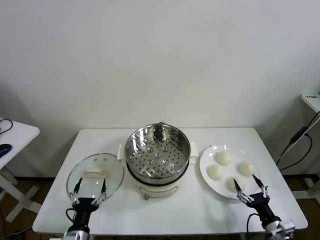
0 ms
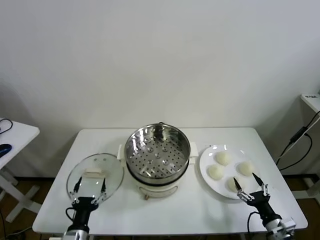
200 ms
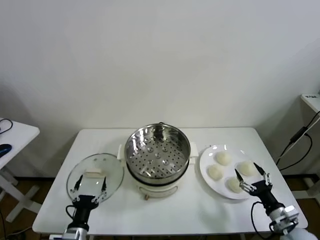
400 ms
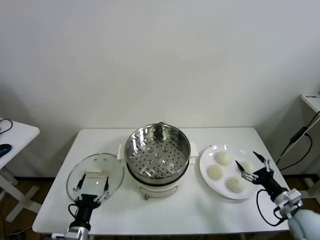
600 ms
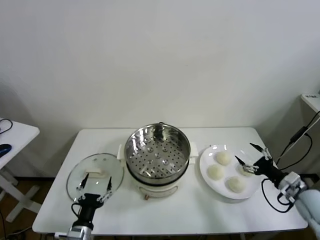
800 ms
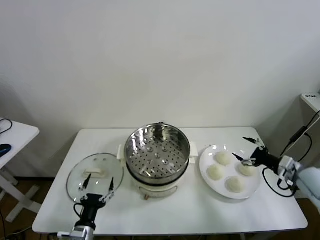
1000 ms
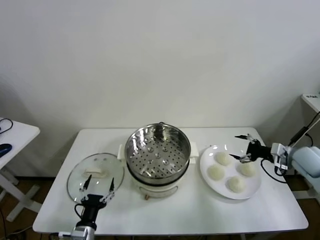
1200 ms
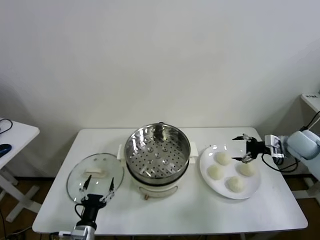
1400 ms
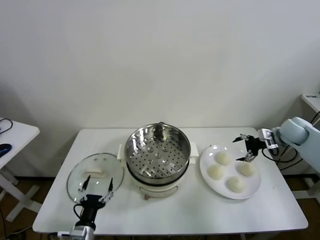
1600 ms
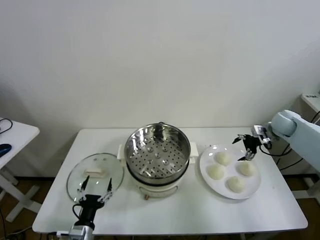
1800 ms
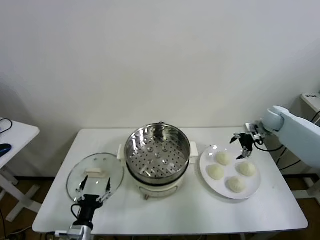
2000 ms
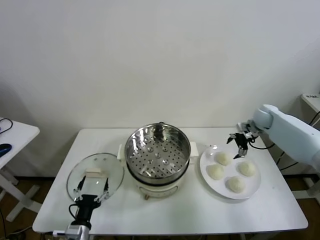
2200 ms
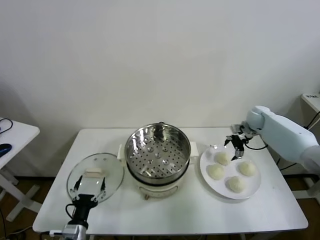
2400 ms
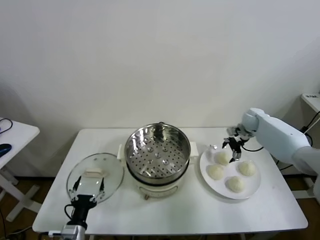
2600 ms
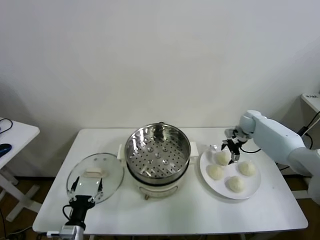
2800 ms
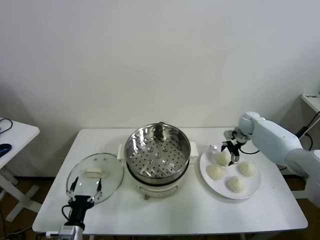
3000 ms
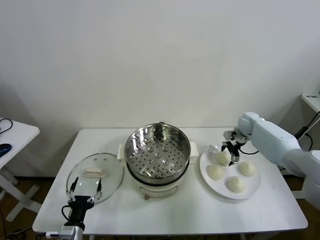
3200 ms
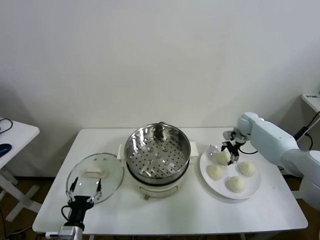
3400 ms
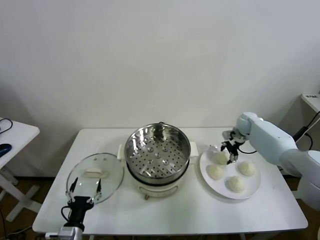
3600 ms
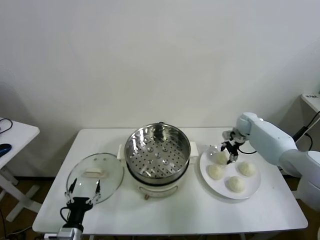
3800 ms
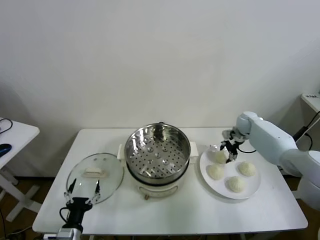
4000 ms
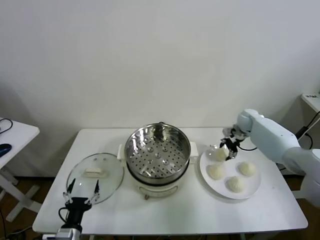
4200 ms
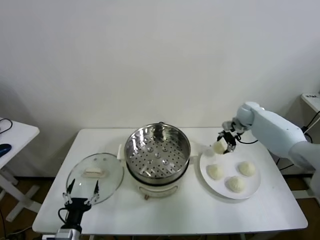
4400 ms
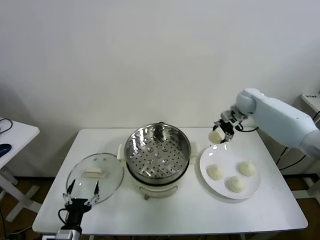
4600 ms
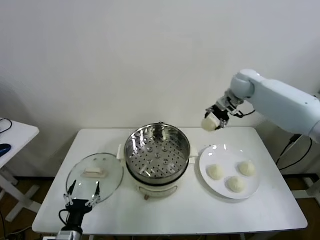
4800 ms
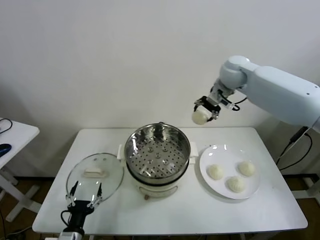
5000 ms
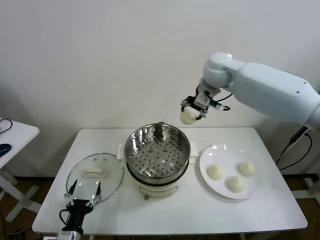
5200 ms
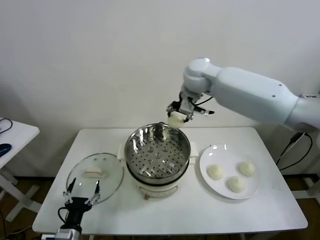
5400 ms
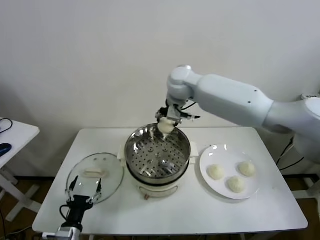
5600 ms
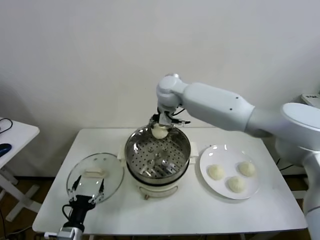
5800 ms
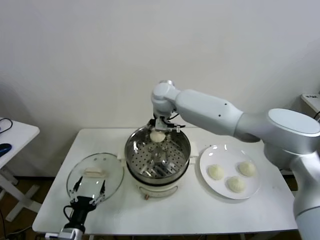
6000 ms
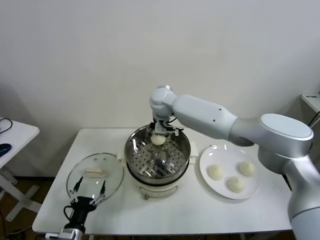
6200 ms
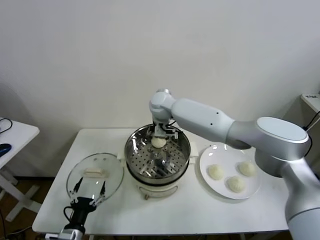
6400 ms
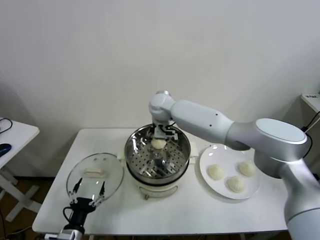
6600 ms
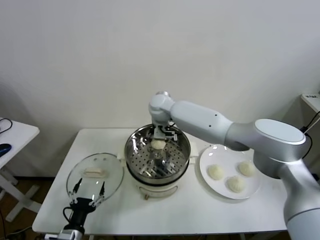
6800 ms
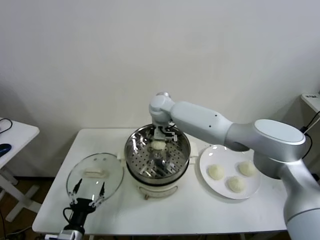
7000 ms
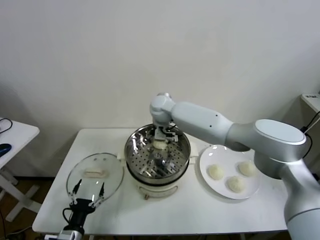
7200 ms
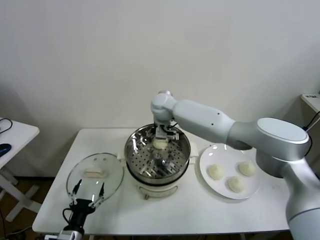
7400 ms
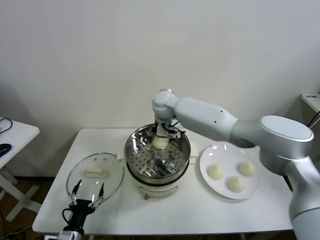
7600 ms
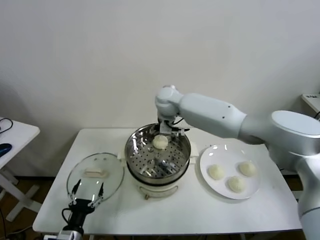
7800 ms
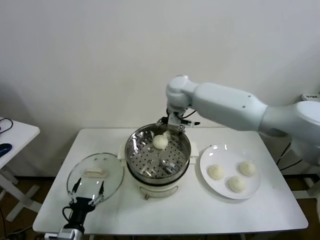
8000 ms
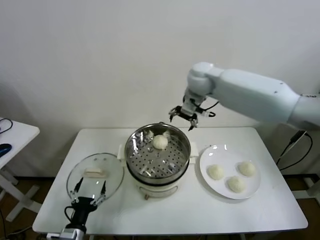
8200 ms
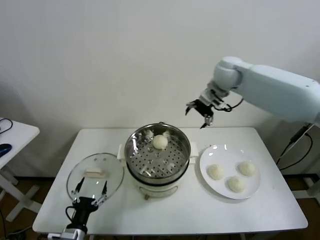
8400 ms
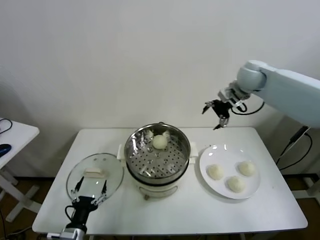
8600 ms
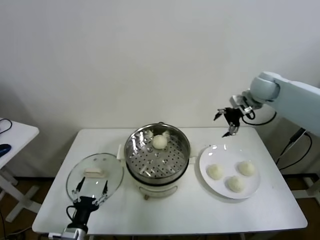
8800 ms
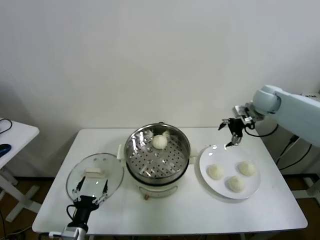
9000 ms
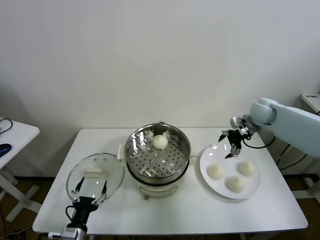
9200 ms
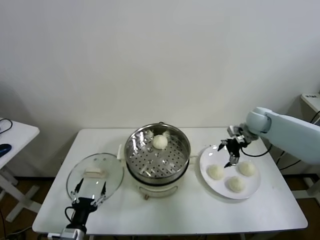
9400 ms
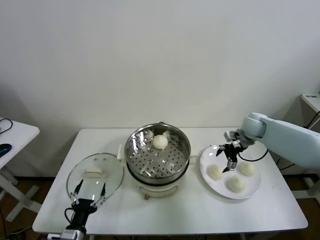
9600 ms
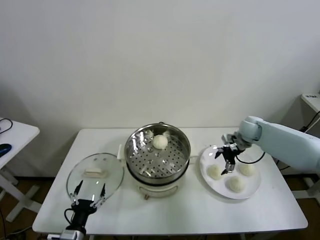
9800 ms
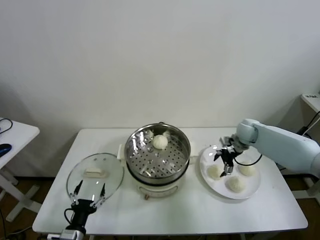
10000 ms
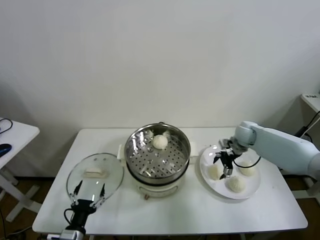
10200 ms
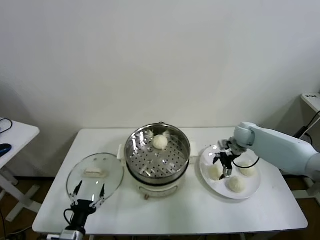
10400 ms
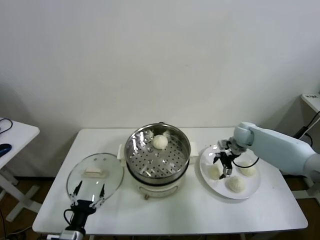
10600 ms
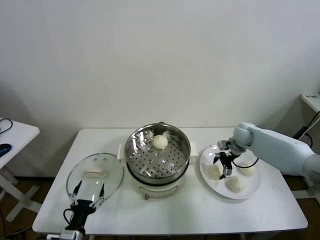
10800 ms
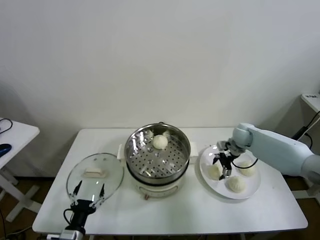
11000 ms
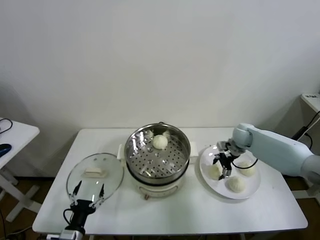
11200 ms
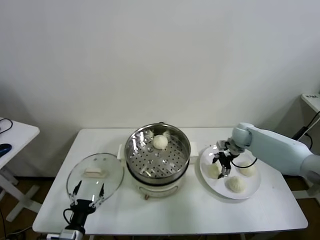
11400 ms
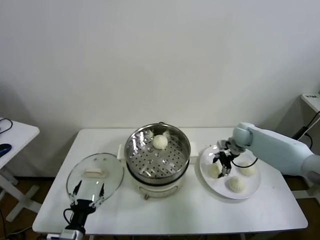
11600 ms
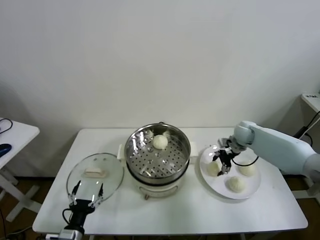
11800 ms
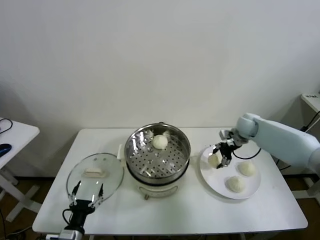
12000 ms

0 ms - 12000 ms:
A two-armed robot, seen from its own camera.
Task of the whole recording: take steamed baozi put them in steamer.
Step, 0 ms - 3400 ms: Grasp the baozi in the plate with right gripper.
Step, 3800 ms - 7200 ms: Place the baozi on the steamer with right gripper.
Step, 7400 ms - 11200 ms: Grasp the baozi in the plate with right gripper.
1600 ms - 3000 ms: The right gripper shifts about 15 cm forward, to the left and downward.
3000 ms - 4400 ms: The right gripper moves upward, approximately 10 cm, and closes.
4400 ms - 6000 ms: The right gripper travels to the left by approximately 35 cm.
6000 ms - 7600 ms: The right gripper opens its fingers.
7600 ms - 9000 ms: The right gripper moves to the right, about 35 cm.
9000 ms - 10400 ms: The right gripper goes some 15 cm downward.
10400 ms - 12000 ms: The right gripper moves upward, about 5 cm, and closes its fingers.

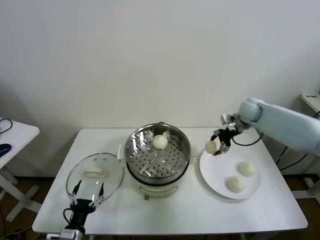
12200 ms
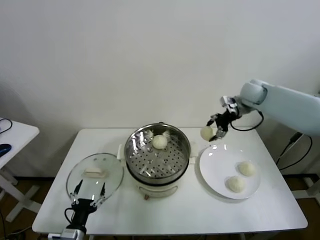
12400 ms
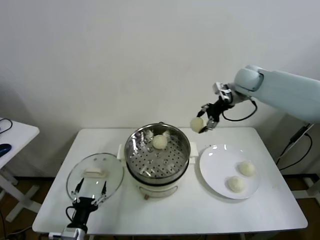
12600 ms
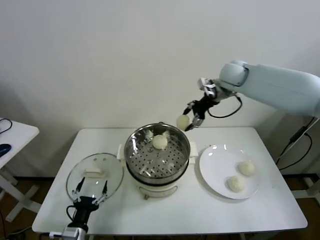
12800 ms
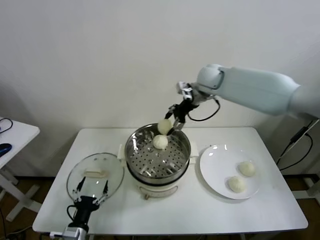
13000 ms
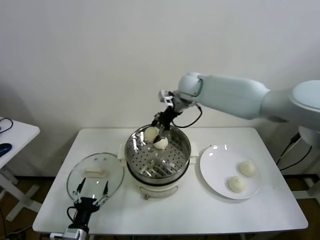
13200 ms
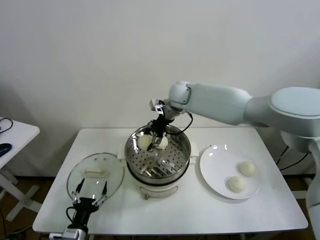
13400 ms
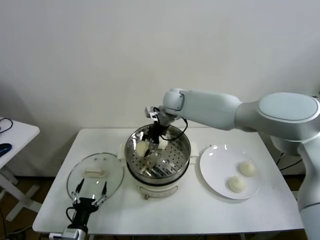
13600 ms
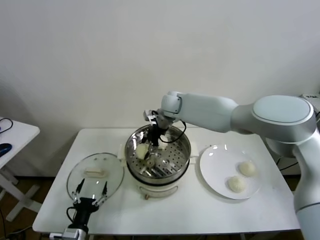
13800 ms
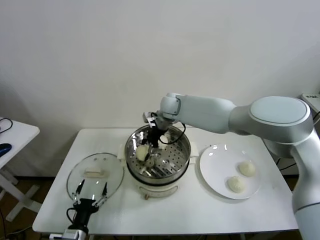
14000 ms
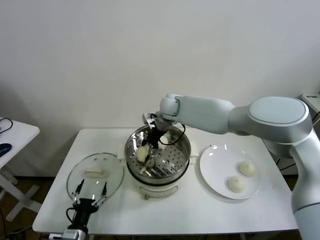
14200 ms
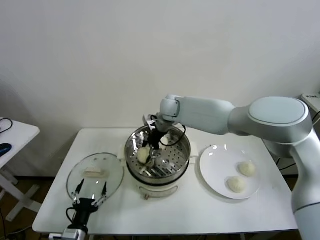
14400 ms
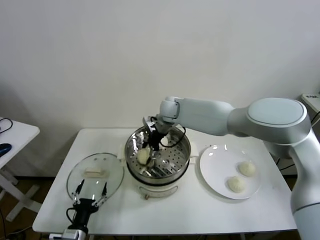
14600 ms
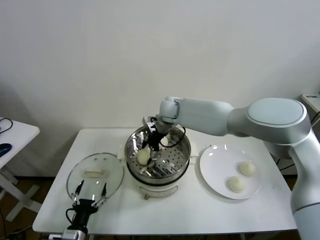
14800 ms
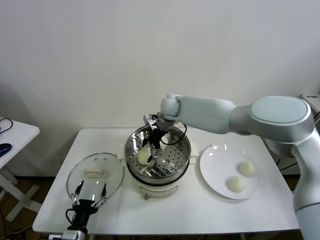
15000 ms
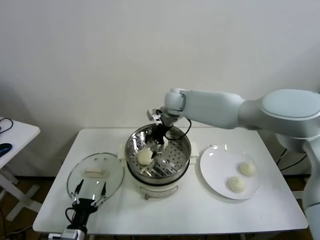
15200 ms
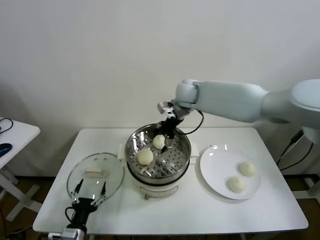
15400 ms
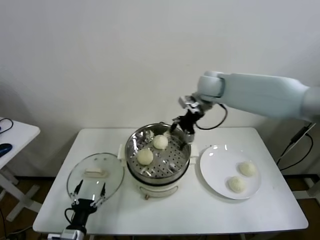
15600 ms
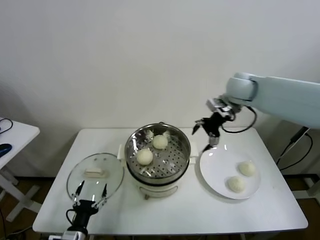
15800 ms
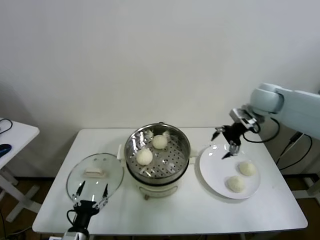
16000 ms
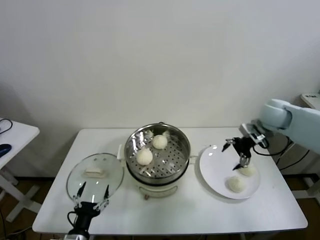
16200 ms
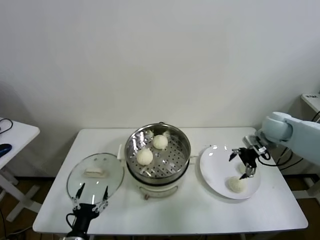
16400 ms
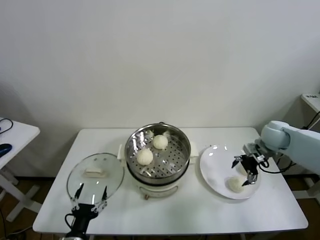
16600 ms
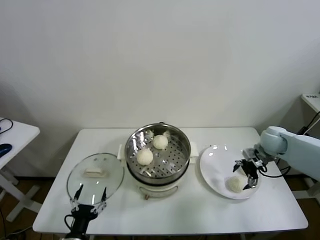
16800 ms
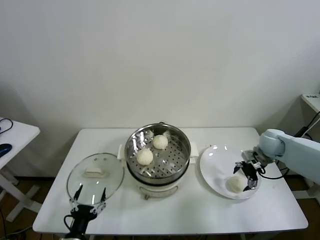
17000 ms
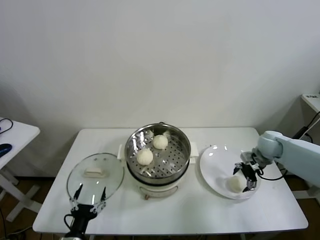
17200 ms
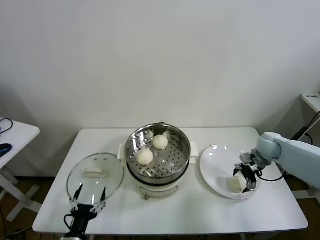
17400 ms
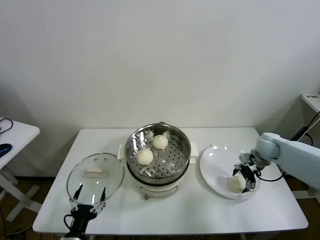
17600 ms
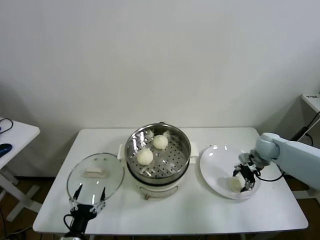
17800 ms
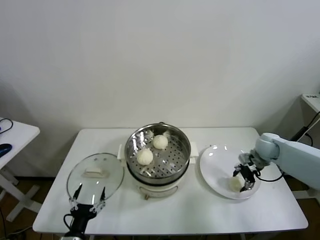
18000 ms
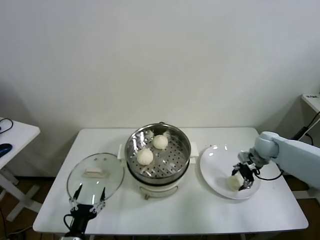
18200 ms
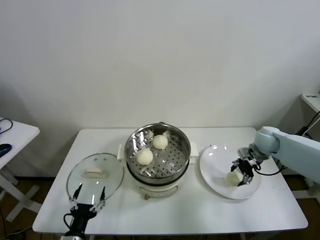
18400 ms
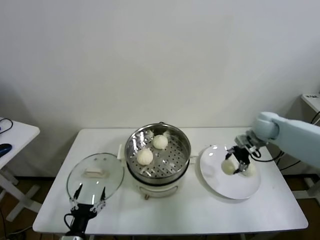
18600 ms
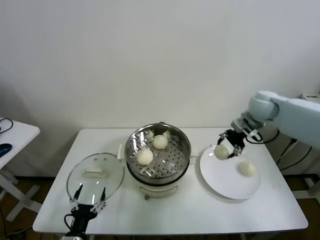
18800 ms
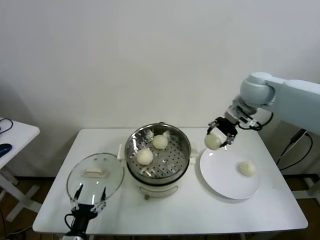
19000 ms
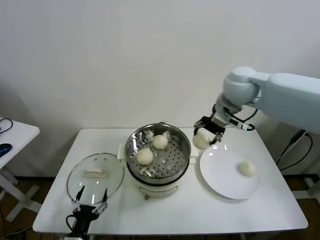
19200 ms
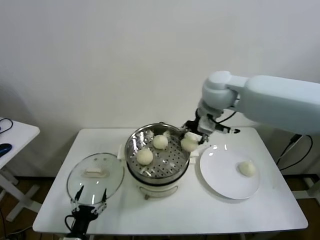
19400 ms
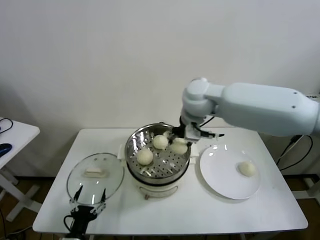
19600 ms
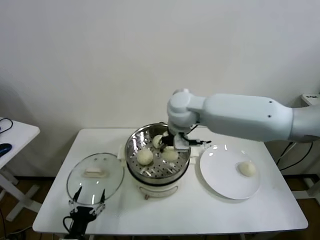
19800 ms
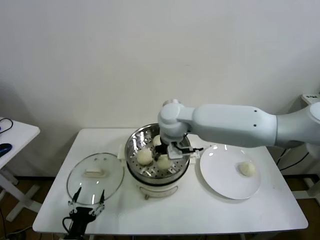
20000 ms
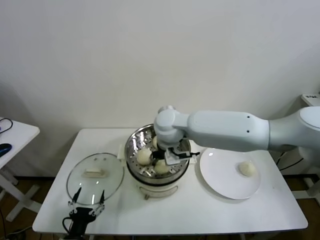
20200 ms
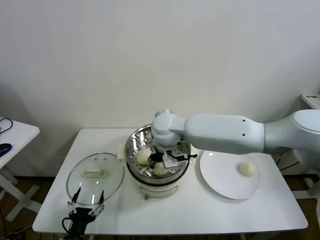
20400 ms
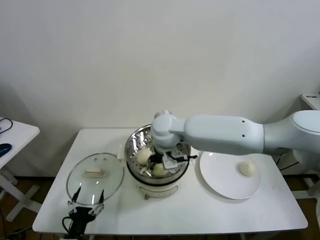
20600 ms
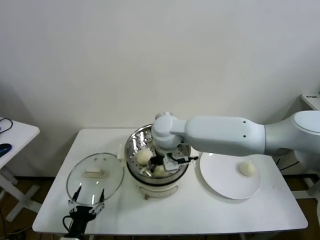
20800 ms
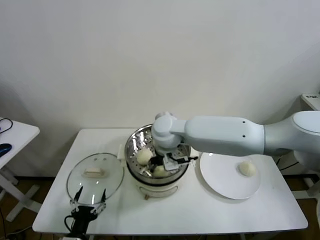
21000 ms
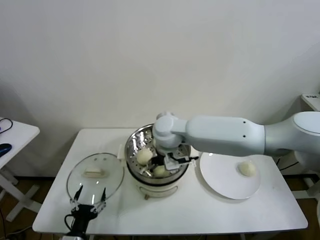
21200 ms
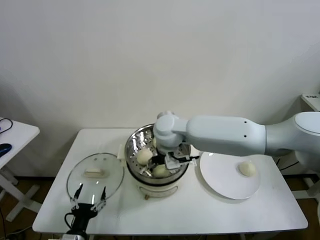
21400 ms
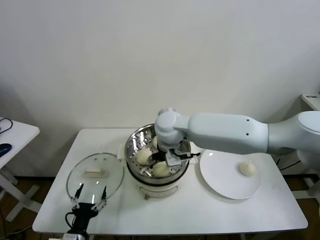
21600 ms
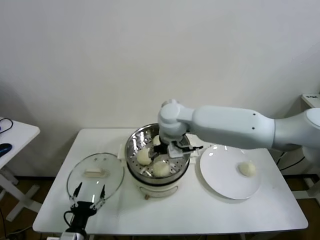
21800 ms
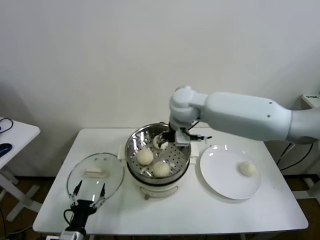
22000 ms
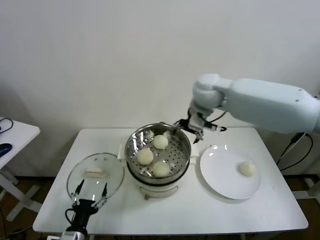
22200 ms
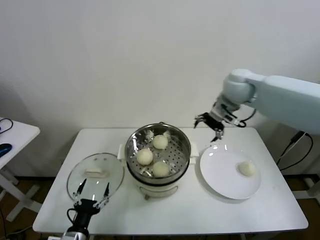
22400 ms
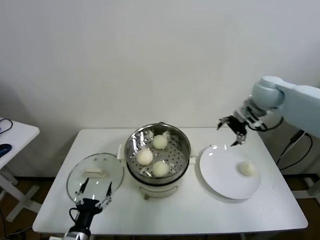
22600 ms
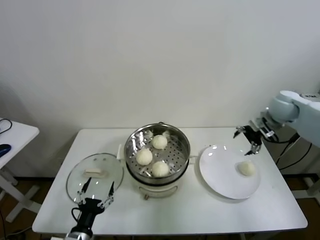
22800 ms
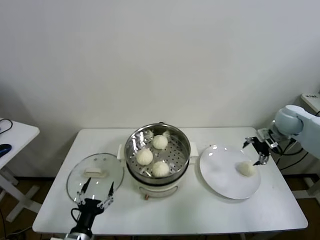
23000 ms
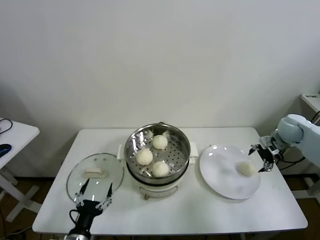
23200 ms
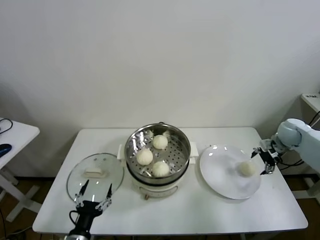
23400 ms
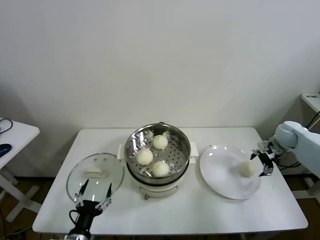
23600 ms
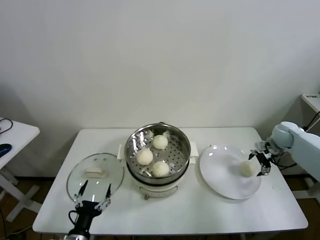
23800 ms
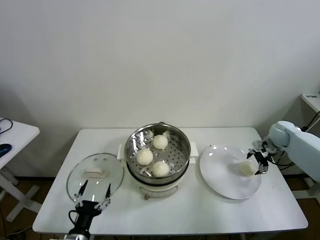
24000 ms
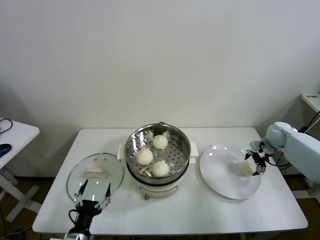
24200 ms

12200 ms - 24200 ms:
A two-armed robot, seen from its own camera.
Task of the whole recording: take steamed baozi put them in steamer.
Step, 12200 ms - 14800 ms: Place the baozi on the steamer with right gripper.
Step, 15200 ms - 17600 ms: Grasp the baozi in the plate with right gripper.
Step, 18000 ms - 21200 ms: Place the baozi on the steamer with right gripper.
12200 ms - 13800 ms: The right gripper shifts roughly 30 cm to the left.
13800 ms - 15200 ms: The right gripper opens up.
15200 ms - 16600 ms: The right gripper moves to the right, about 35 cm.
16600 ms - 18200 ms: The right gripper moves downward, some 5 cm, and closes its fingers.
18200 ms - 19800 ms: The right gripper goes approximately 40 cm to the left and upward.
19800 ms - 21200 ms: The right gripper heads downward, covering about 5 cm, and opens up.
21200 ms - 22600 ms: The right gripper is displaced to the right by about 35 cm.
22600 ms - 24200 ms: The right gripper goes roughly 25 cm downward and to the right.
